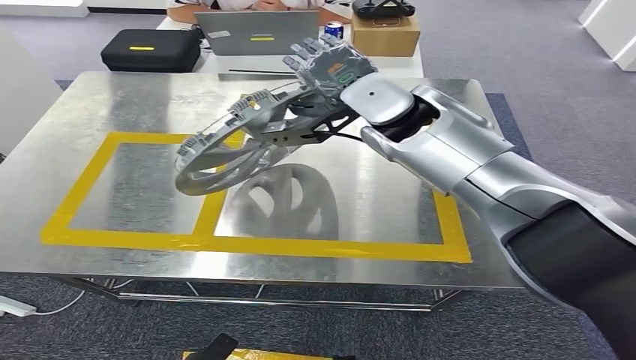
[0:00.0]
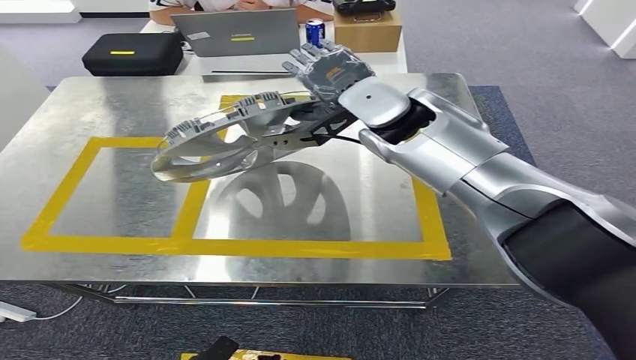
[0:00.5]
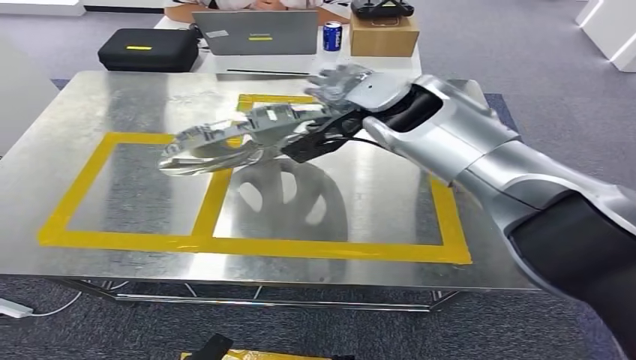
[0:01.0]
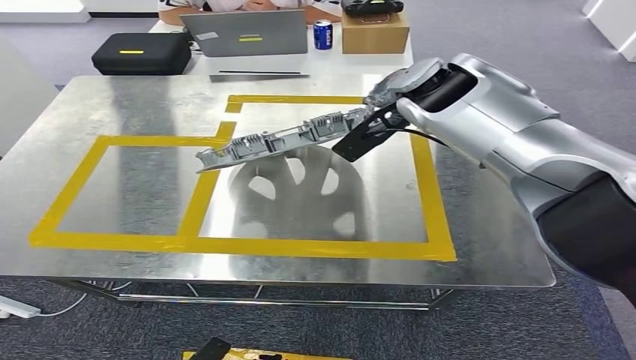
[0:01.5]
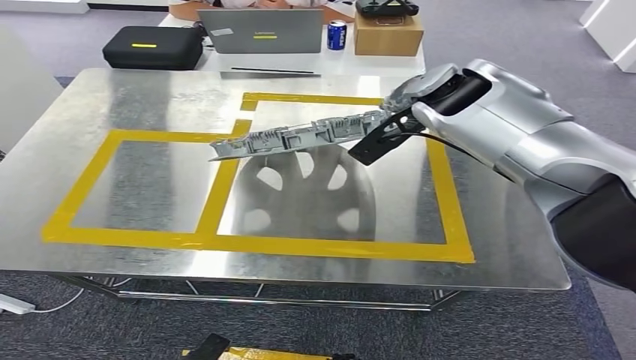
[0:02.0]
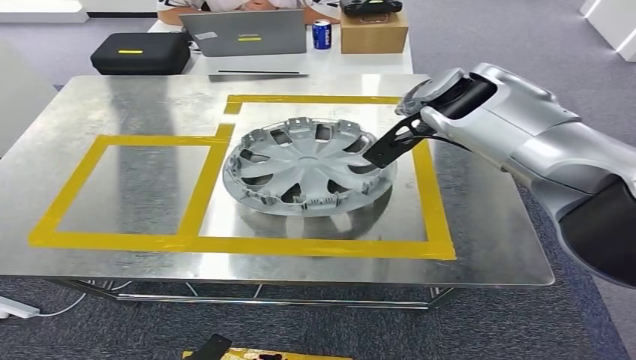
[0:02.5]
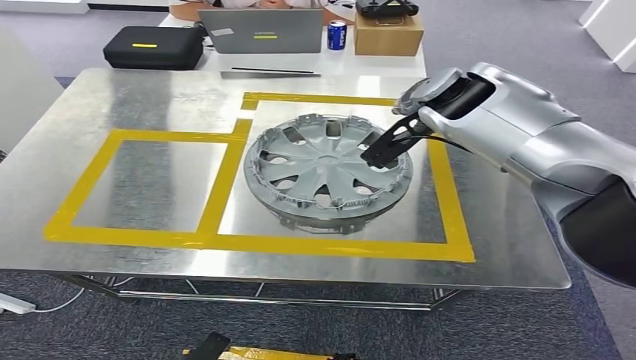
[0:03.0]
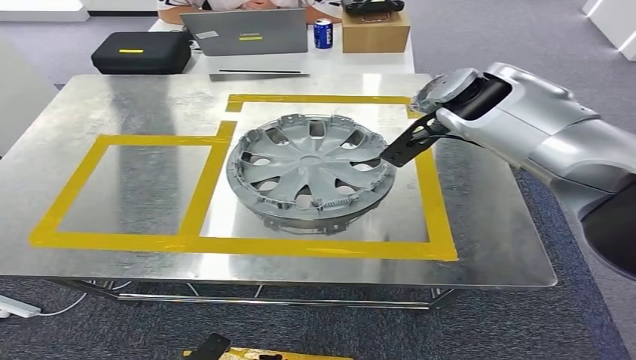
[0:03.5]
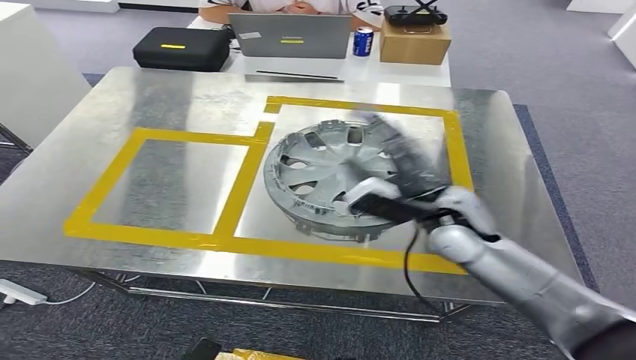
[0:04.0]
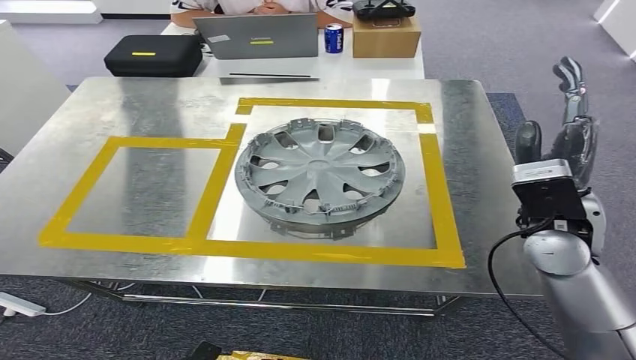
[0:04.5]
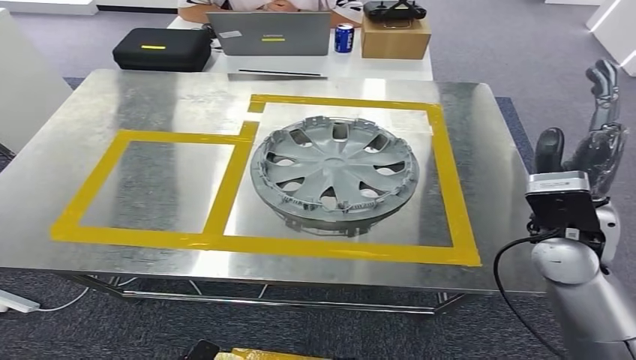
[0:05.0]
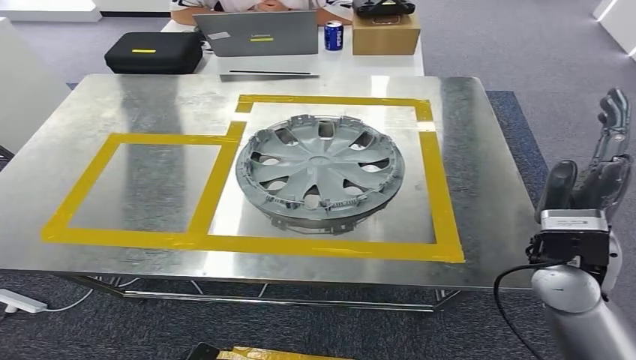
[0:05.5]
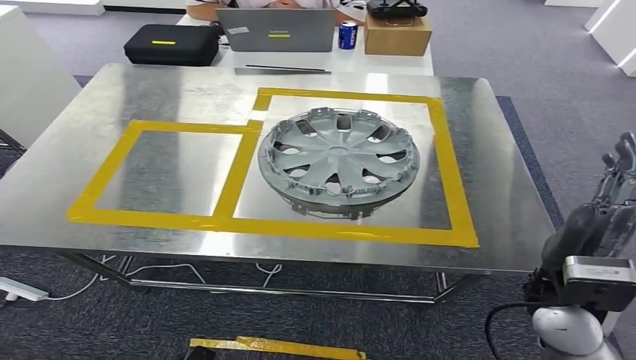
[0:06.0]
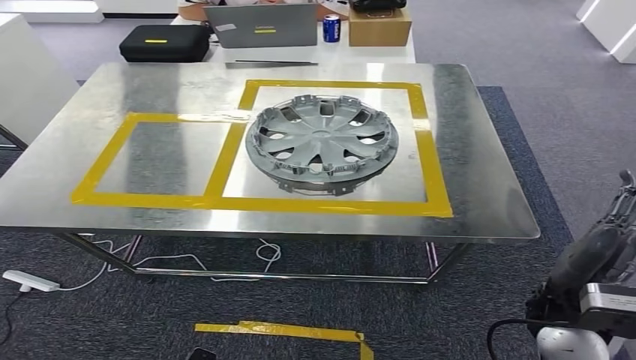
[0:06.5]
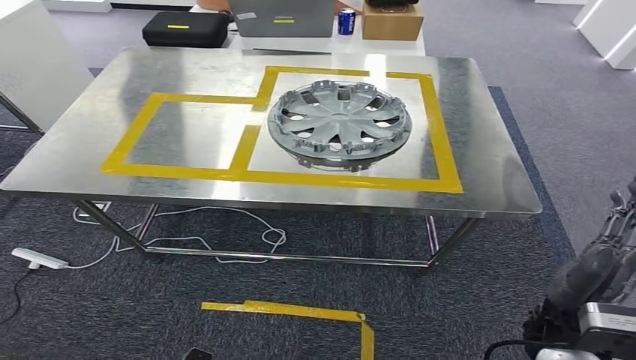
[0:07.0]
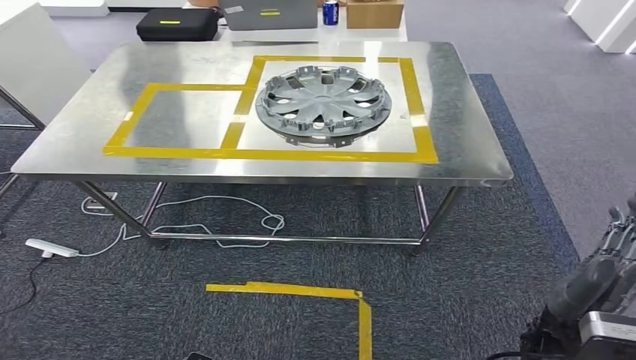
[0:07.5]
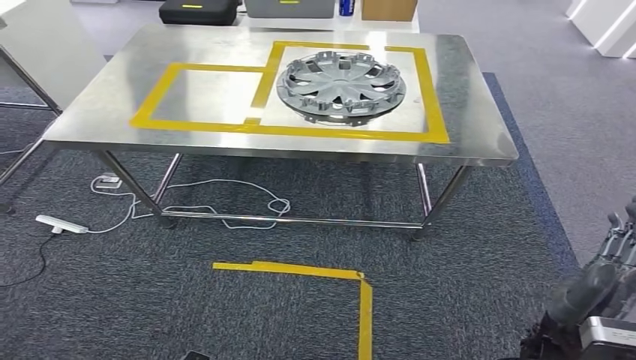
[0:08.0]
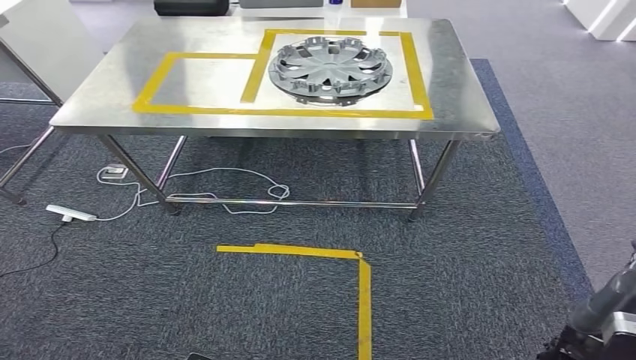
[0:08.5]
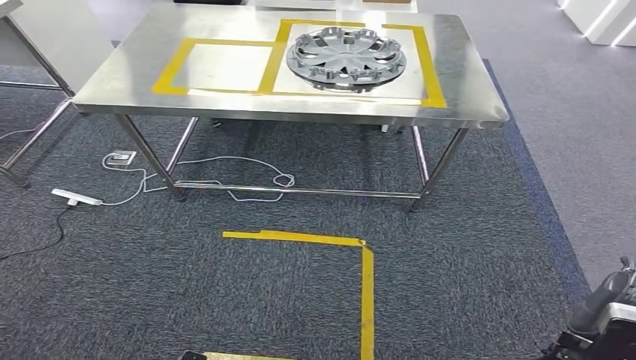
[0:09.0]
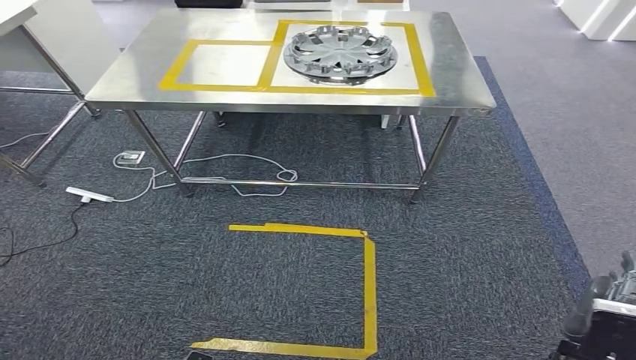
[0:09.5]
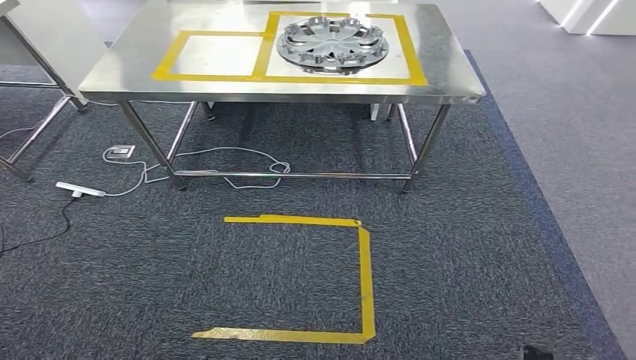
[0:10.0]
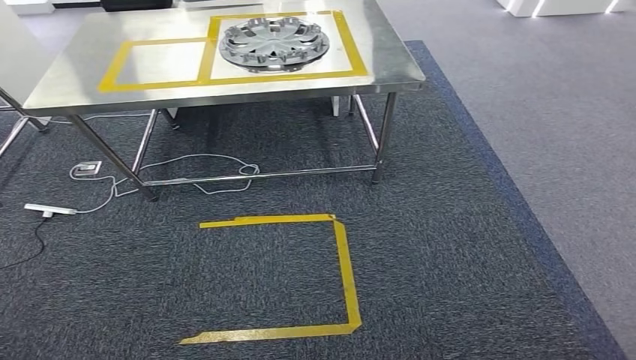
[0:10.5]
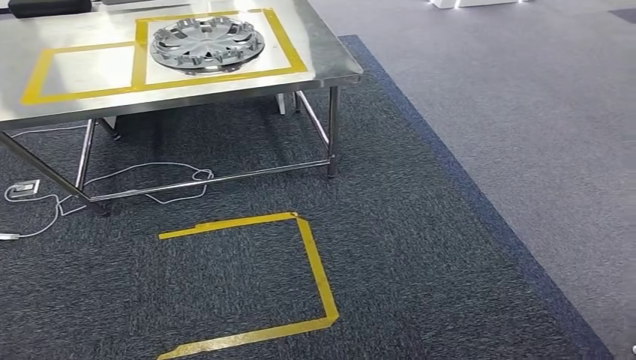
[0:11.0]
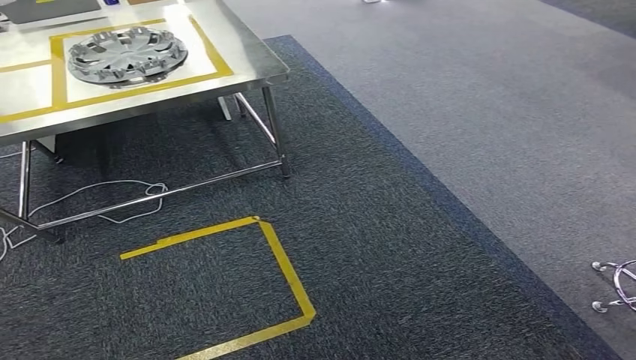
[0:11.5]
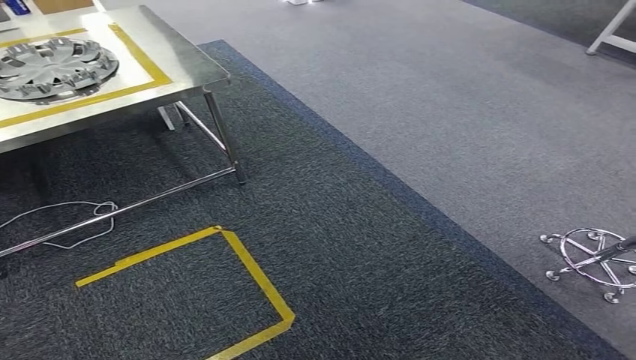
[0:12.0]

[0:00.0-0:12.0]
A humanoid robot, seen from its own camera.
Step, 0:00.0 to 0:05.0: Insert the small component into the corresponding slot on the workbench.

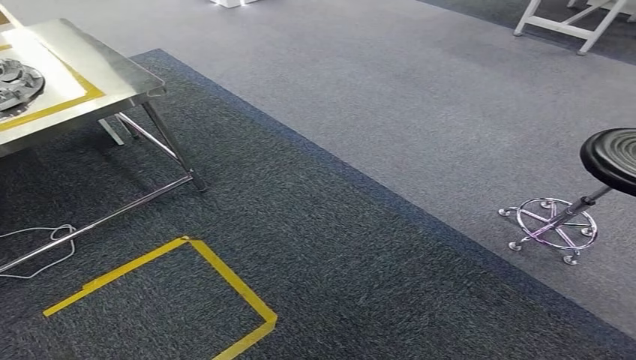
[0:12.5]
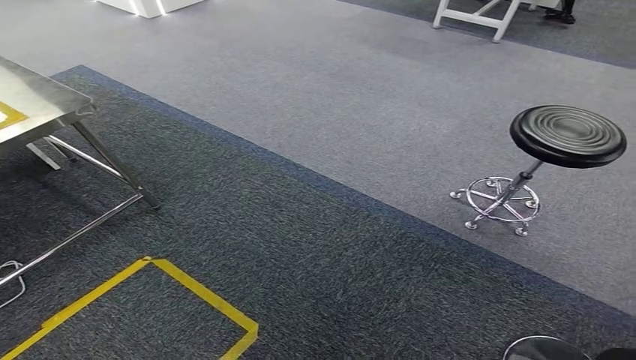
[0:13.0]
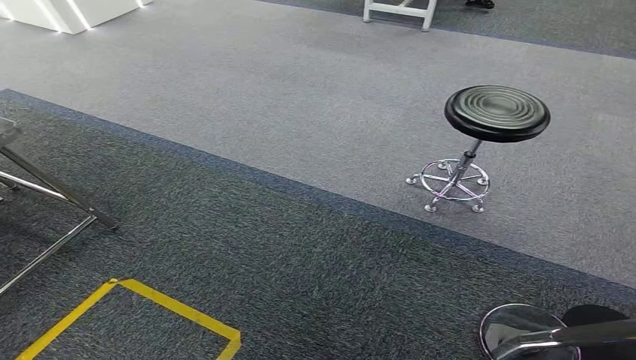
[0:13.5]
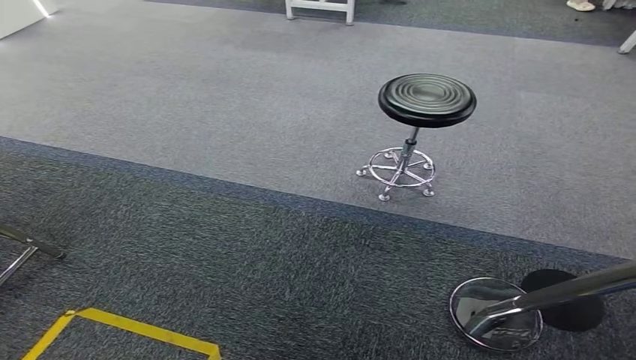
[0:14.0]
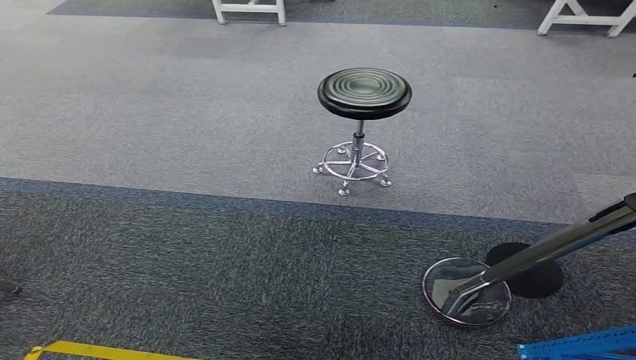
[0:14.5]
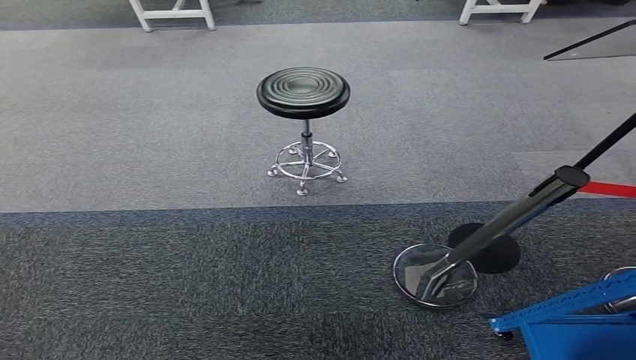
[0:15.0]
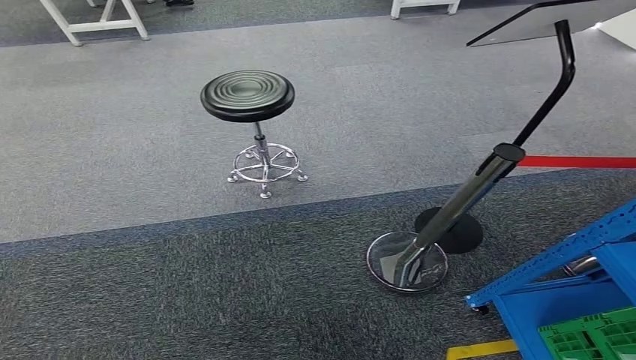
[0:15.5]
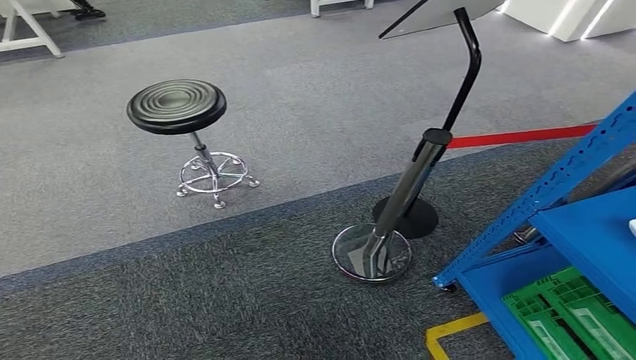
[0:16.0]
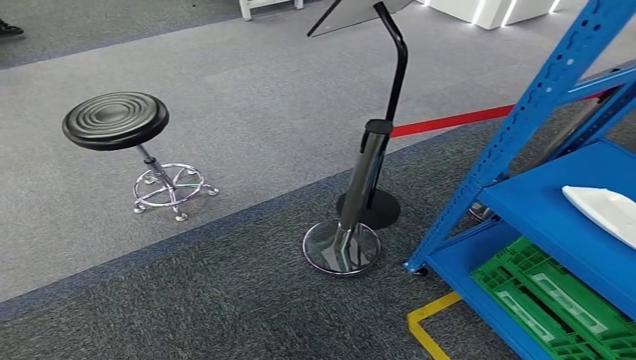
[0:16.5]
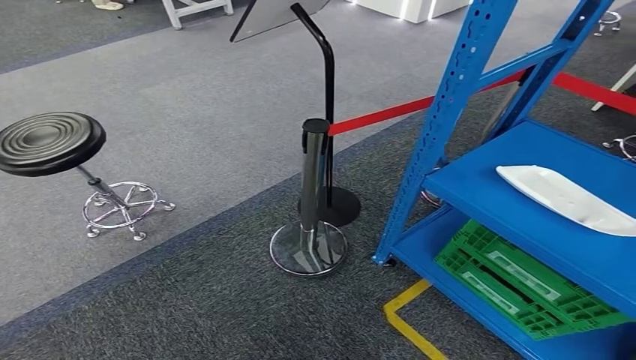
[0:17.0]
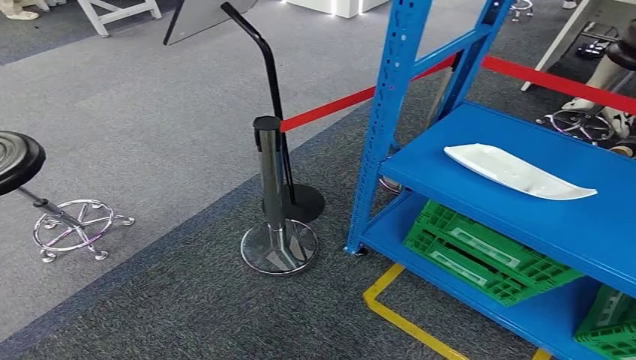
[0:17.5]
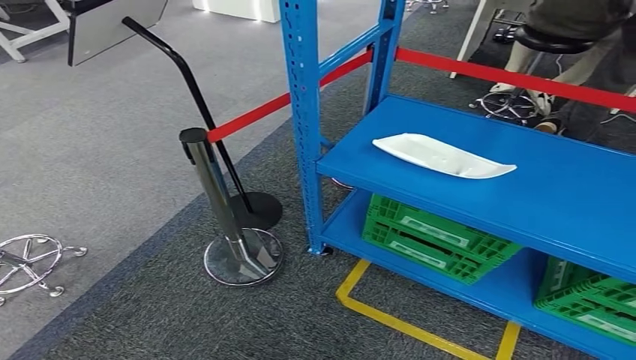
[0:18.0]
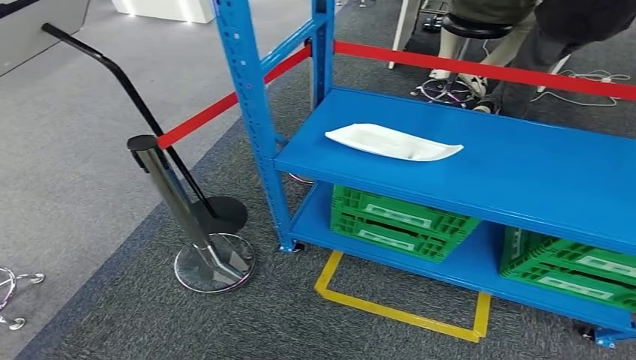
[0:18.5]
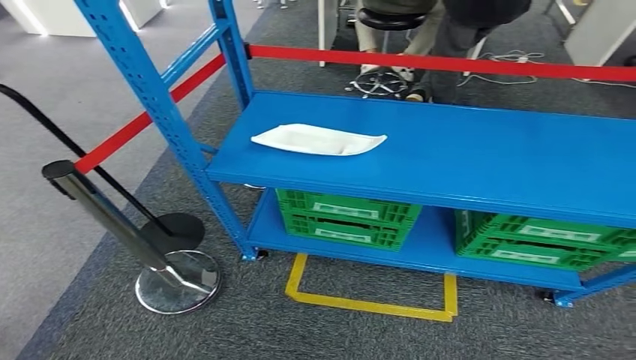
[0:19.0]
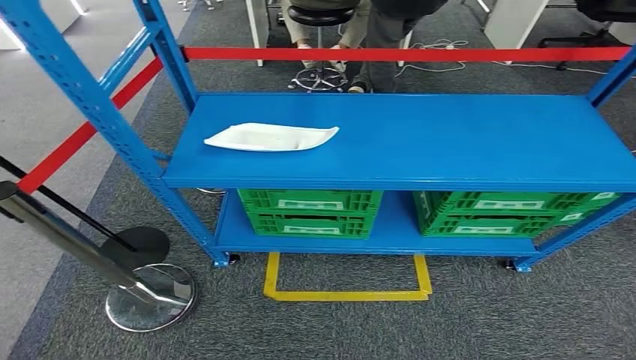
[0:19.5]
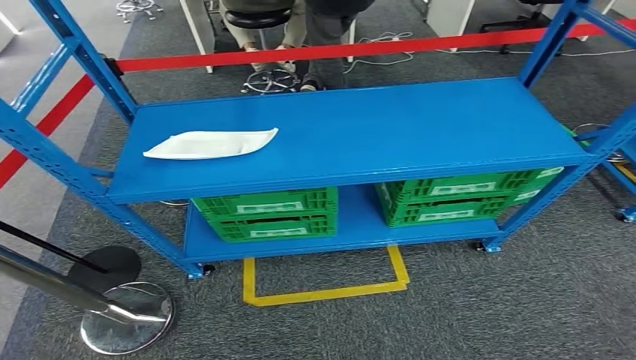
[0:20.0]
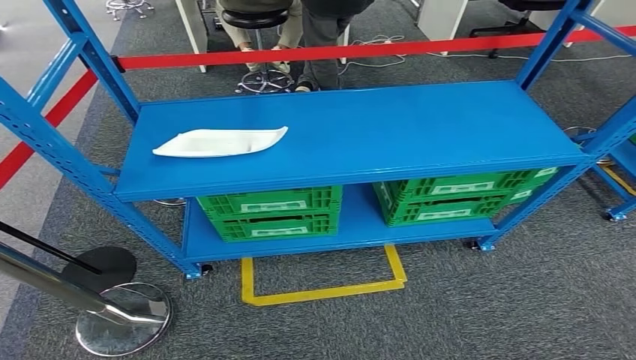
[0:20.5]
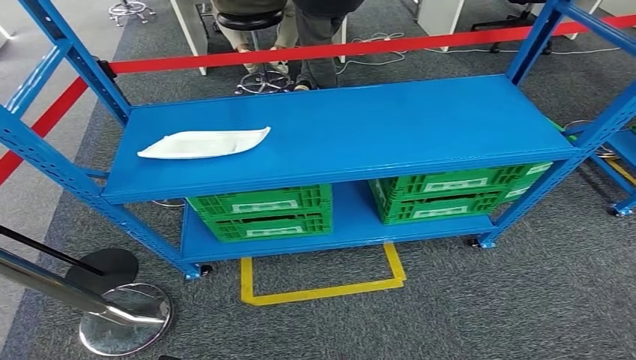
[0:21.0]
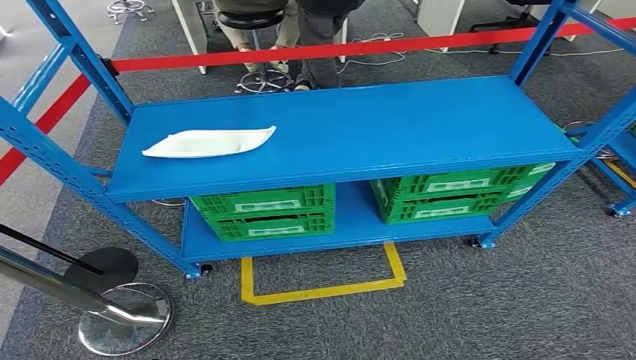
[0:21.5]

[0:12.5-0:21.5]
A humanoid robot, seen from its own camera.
Step, 0:12.5 to 0:21.0: Move to the initial position of the workbench.
